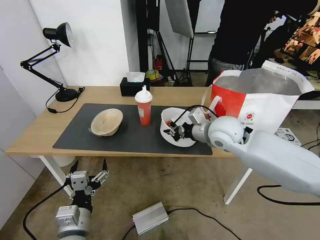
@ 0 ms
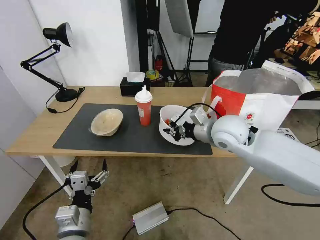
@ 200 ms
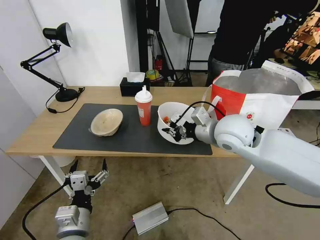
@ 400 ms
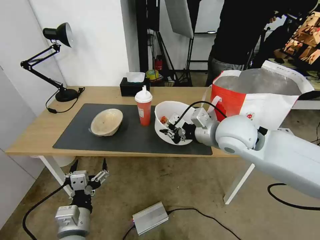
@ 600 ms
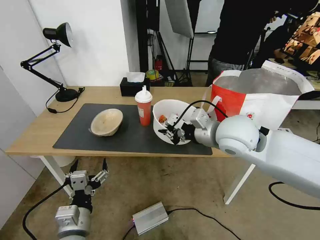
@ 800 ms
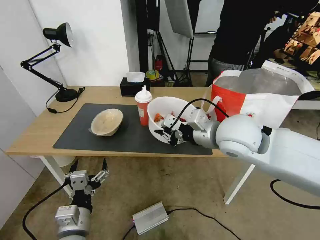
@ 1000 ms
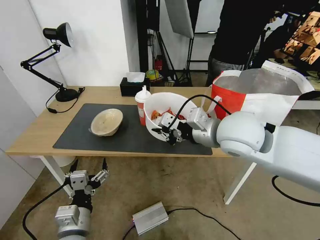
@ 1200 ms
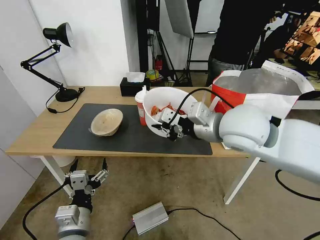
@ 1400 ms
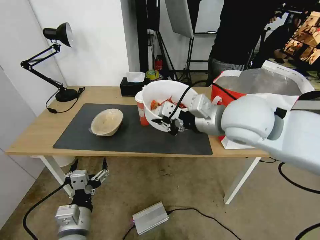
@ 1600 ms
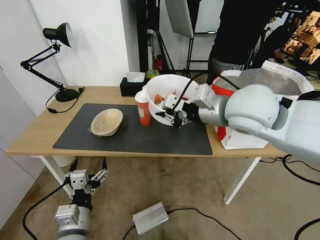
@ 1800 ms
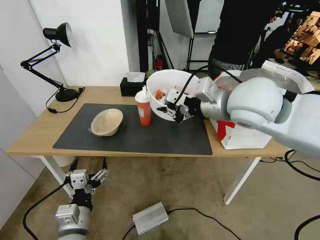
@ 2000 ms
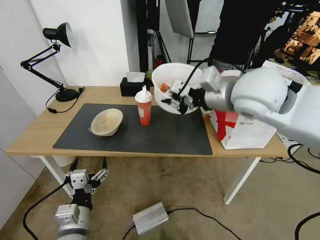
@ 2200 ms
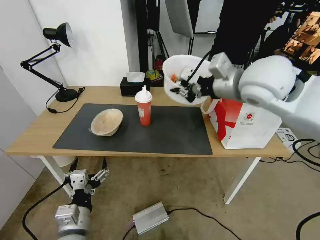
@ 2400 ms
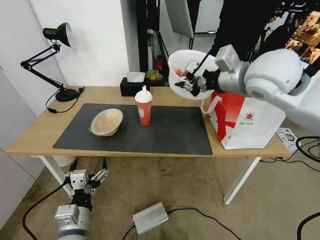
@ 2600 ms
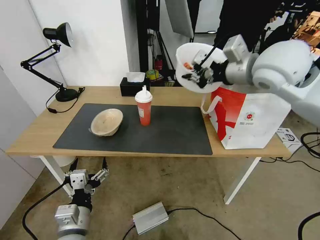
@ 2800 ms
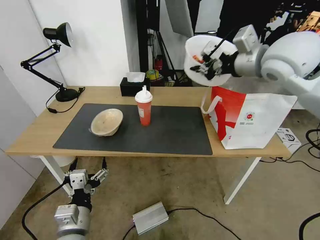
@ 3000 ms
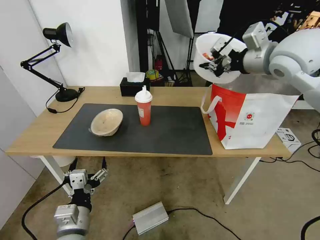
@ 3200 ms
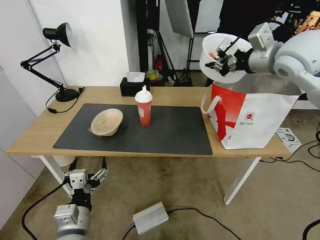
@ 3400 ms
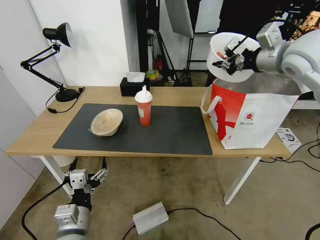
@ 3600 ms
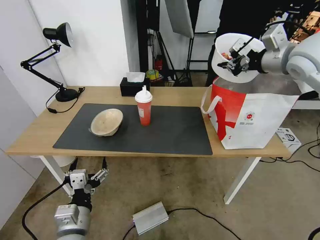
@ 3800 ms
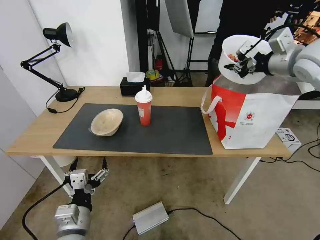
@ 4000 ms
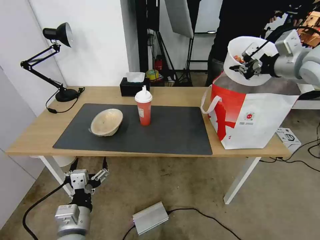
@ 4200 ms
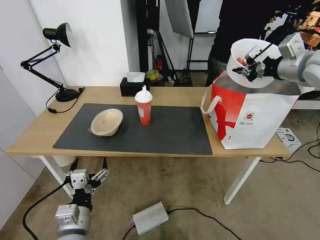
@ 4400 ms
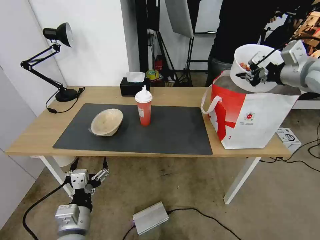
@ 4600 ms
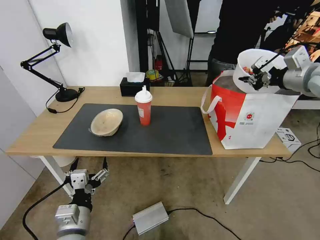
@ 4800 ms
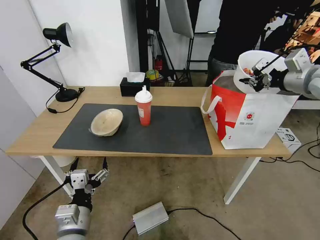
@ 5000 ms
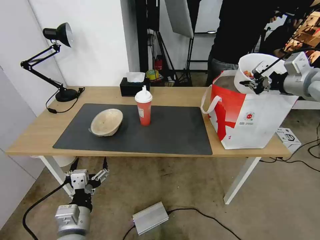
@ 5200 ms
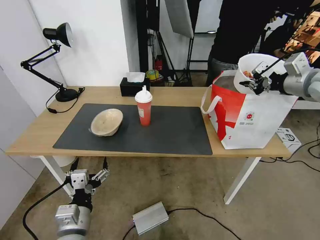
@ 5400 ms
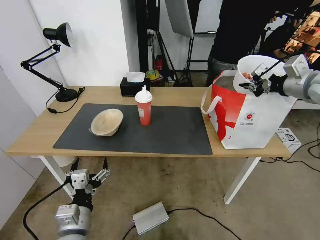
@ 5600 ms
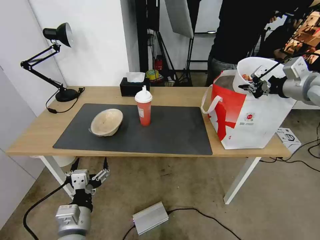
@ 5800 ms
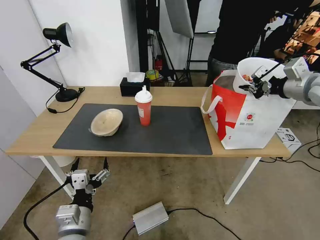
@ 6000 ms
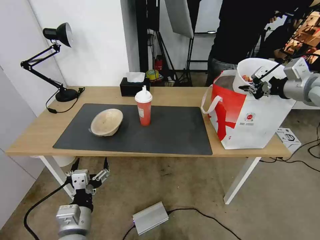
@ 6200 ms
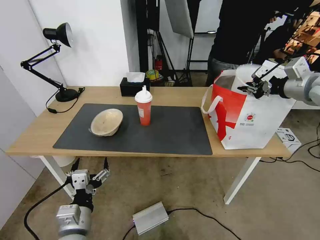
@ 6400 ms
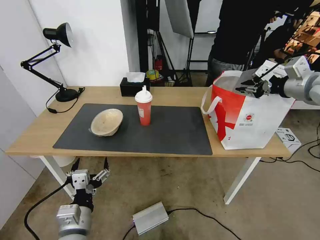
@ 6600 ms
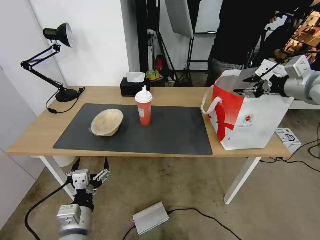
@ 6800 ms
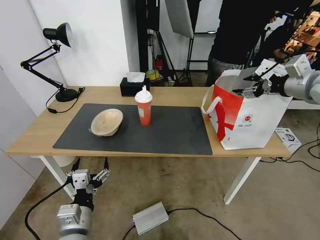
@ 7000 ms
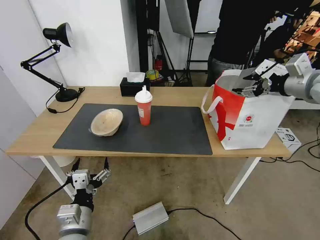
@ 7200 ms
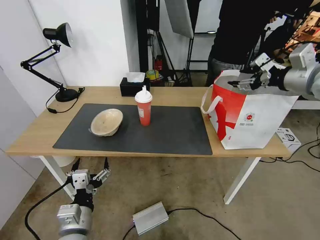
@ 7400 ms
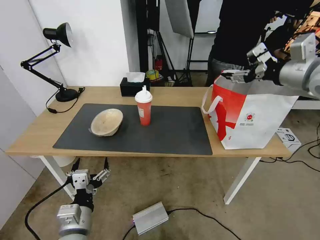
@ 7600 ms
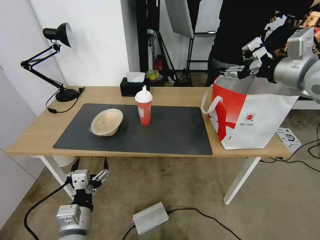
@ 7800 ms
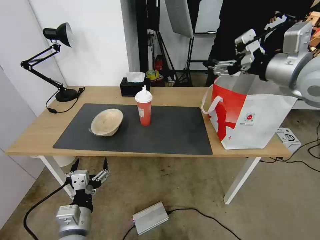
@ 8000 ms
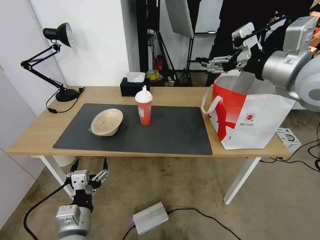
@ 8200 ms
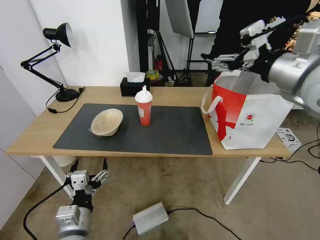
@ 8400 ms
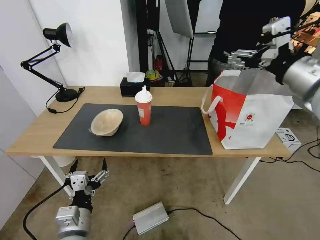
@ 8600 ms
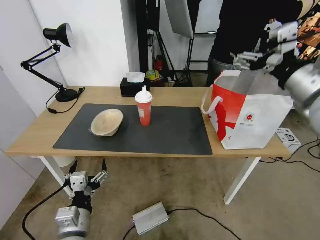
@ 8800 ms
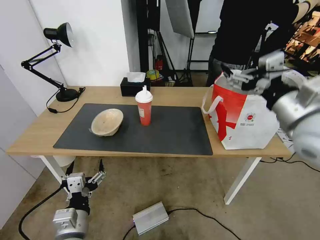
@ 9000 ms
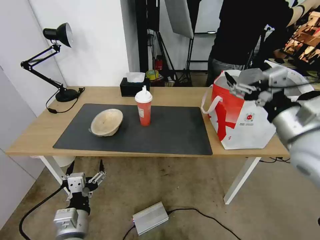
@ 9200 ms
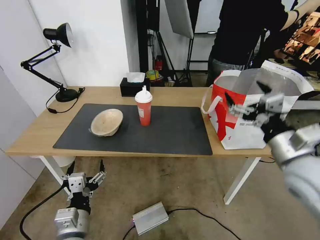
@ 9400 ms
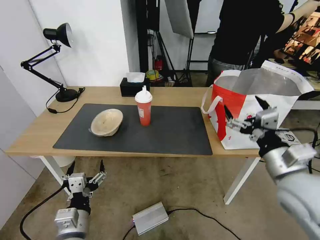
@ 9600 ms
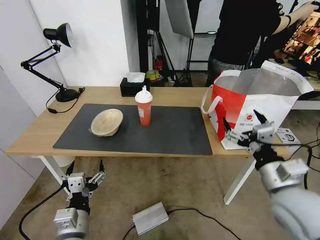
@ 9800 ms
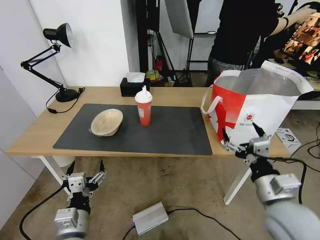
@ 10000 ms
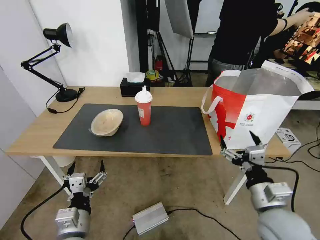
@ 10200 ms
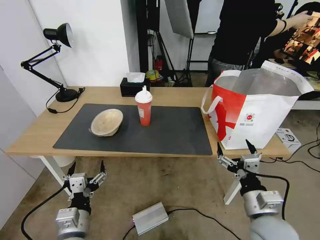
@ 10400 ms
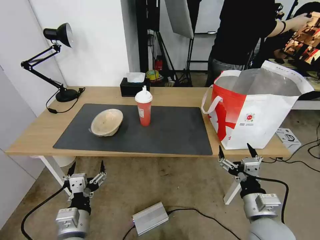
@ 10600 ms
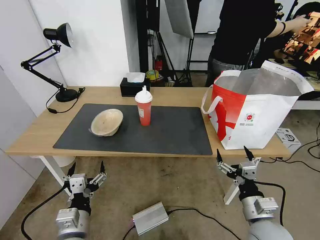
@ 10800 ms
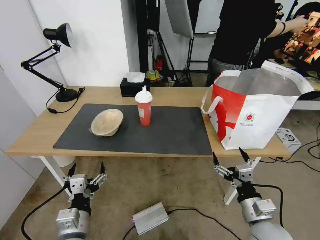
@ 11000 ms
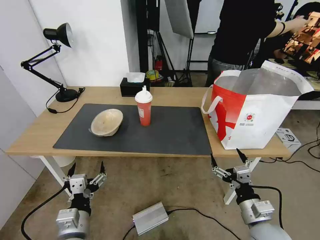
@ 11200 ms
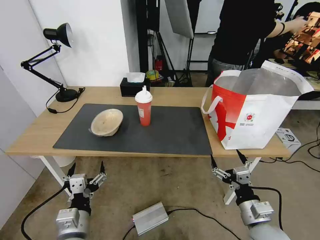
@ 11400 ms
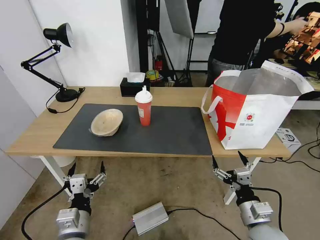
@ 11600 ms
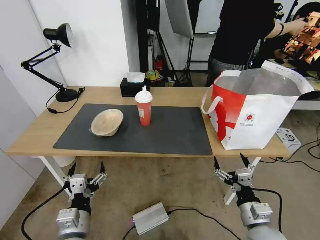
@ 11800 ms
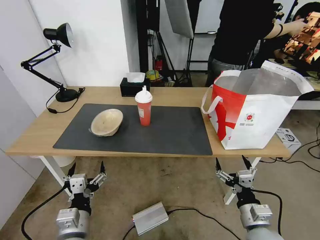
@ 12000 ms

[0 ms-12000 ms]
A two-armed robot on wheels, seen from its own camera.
Task of the whole recording: Pick up the trash from the table and place it into the takeout bag.
0 ms to 1600 ms: The right gripper shifts approximately 15 cm upward and backward.
1600 ms to 3000 ms: The right gripper shifts about 15 cm to the right, forward and upward.
3000 ms to 4400 ms: The right gripper goes roughly 10 cm to the right.
4400 ms to 6000 ms: The right gripper ends up approximately 5 cm from where it was.
6000 ms to 7600 ms: The right gripper shifts by approximately 5 cm, and opens.
7600 ms to 9000 ms: The right gripper goes about 15 cm backward, downward and to the left.
9000 ms to 10400 ms: The right gripper moves downward and backward, approximately 25 cm.
10400 ms to 12000 ms: The right gripper is displaced downward by roughly 5 cm.

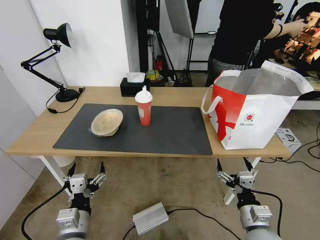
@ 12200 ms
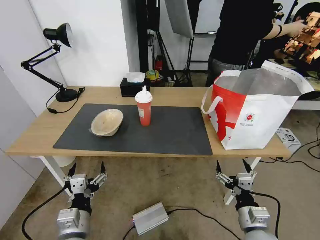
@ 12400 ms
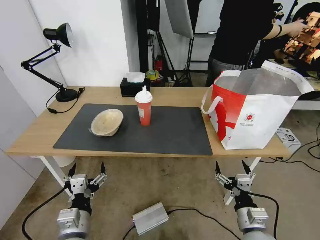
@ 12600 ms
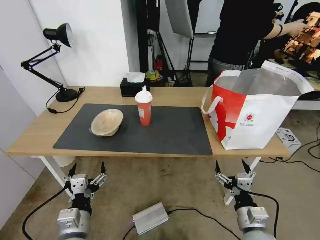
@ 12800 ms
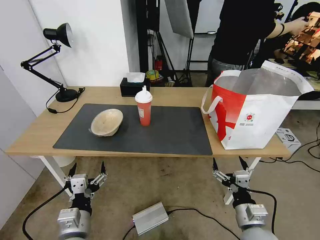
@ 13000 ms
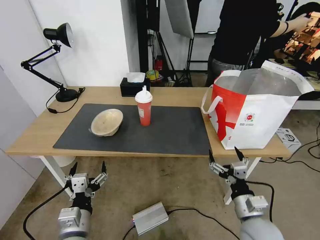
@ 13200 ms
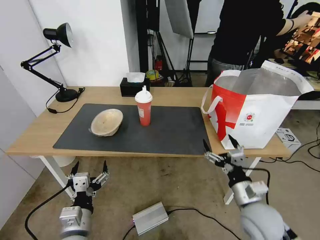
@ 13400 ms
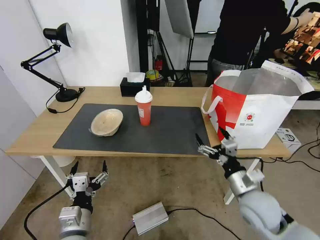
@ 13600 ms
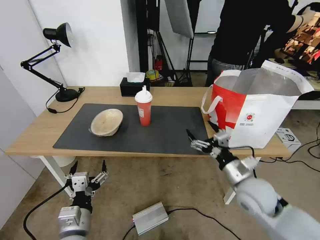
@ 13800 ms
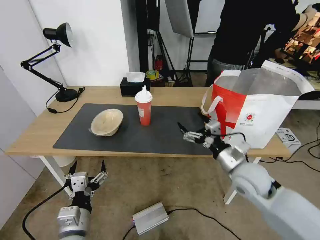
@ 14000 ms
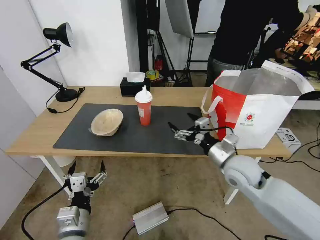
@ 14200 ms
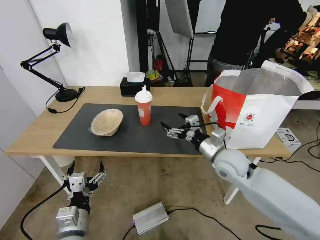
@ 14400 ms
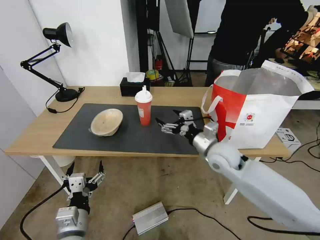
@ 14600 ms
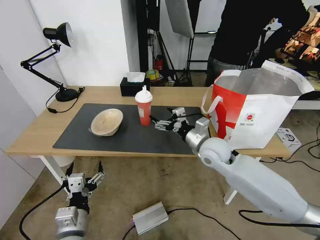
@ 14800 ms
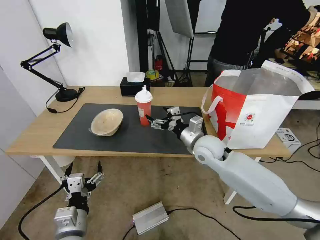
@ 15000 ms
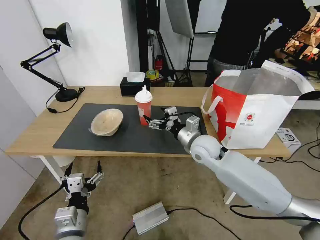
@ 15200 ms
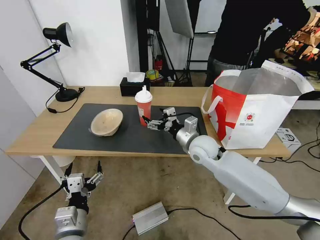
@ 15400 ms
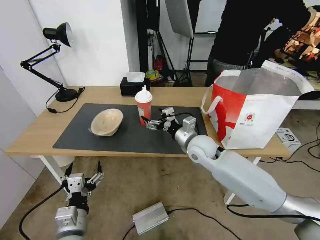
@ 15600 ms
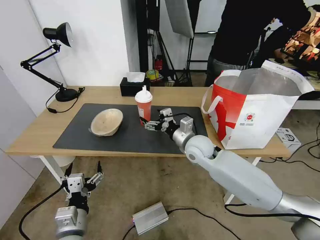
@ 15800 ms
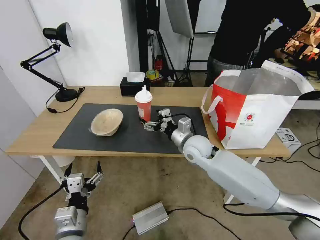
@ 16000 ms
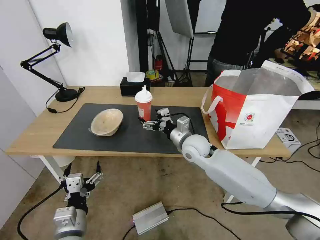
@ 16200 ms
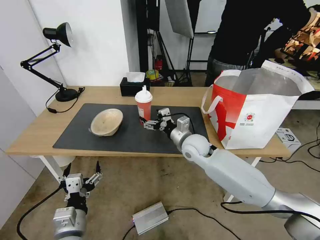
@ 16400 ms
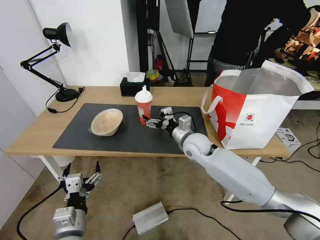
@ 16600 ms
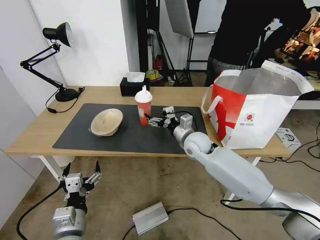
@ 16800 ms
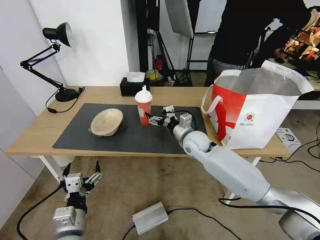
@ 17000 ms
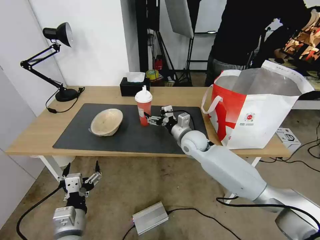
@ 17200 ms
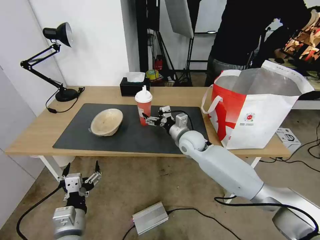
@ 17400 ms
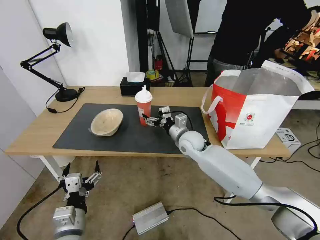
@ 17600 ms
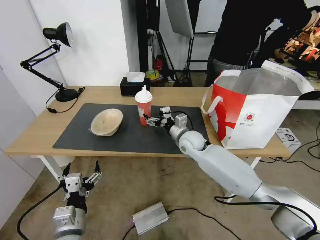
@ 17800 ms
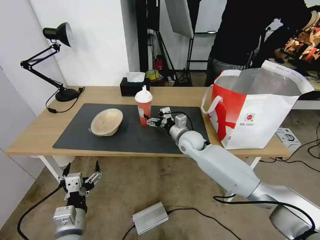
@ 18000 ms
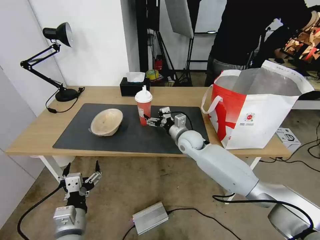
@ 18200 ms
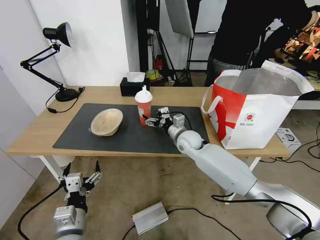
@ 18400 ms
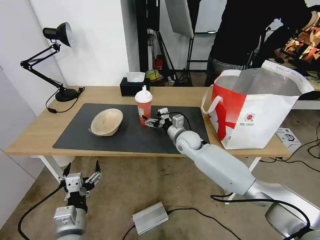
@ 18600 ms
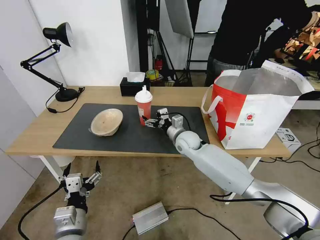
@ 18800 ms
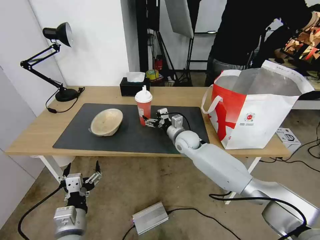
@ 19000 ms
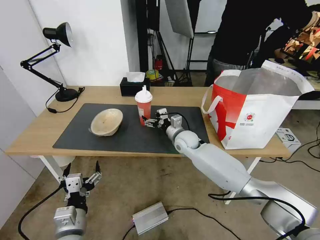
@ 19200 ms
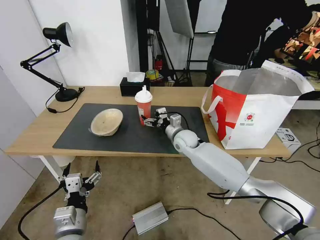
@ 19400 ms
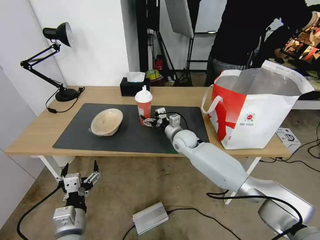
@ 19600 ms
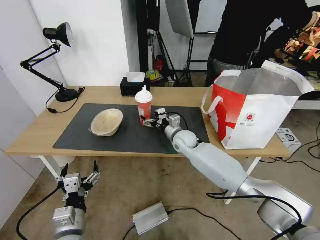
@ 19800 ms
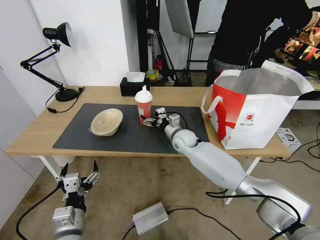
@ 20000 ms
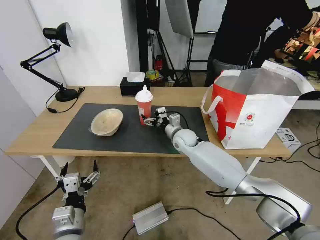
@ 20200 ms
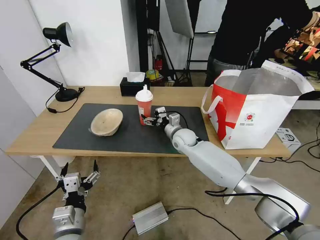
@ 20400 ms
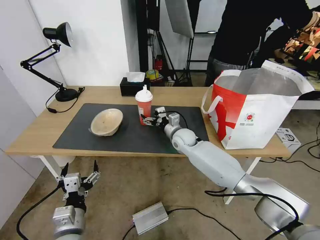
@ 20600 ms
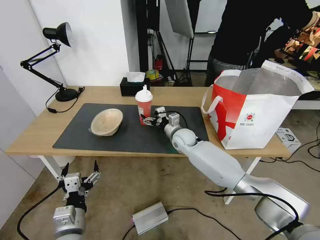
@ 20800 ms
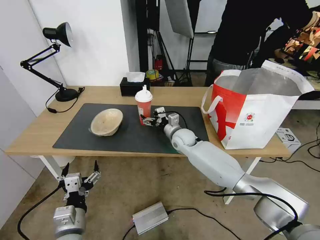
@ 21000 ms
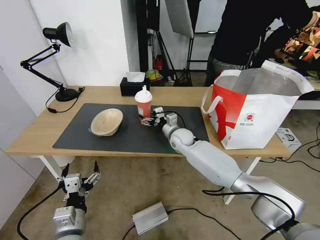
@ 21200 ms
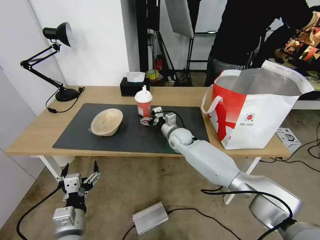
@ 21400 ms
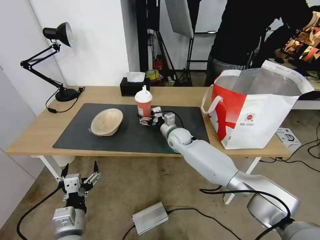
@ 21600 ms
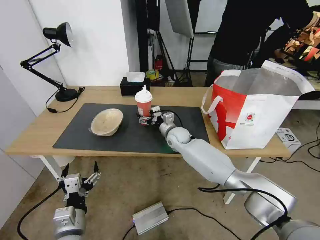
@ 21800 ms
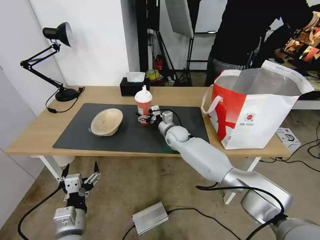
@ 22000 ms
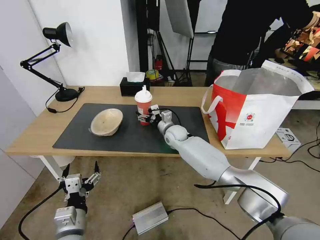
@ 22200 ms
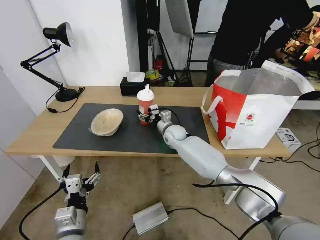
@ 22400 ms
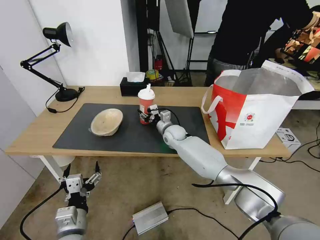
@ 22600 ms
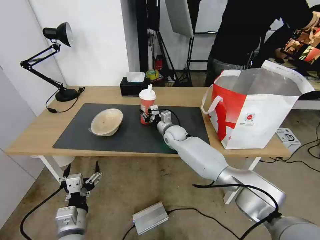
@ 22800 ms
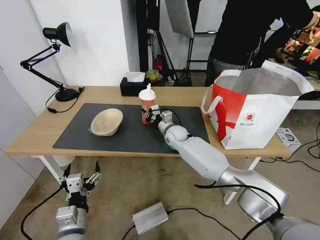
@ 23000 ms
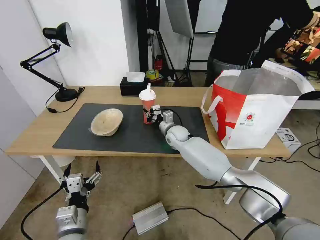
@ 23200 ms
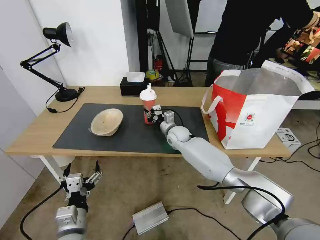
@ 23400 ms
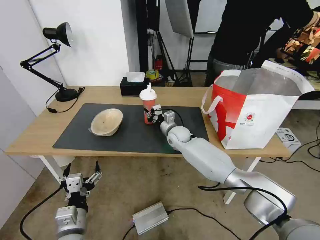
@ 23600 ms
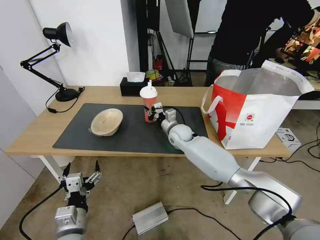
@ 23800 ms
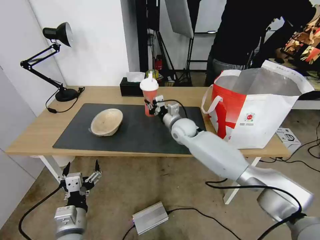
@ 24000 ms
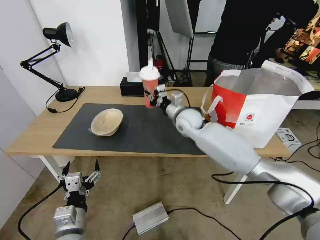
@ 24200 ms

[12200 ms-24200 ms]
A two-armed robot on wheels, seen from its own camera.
Task of the whole recording: Pick up the trash from the table and place it into the takeout bag.
12200 ms to 13800 ms: The right gripper travels forward and upward by some 15 cm.
13800 ms to 15200 ms: The right gripper goes roughly 20 cm forward and to the left.
15200 ms to 16600 ms: The grippers move only a little.
16600 ms to 18200 ms: The right gripper moves some 5 cm.
18200 ms to 21200 ms: The grippers make only small movements.
21200 ms to 22600 ms: The right gripper closes its fingers.
22600 ms to 24200 ms: The right gripper heads upward, covering some 10 cm, and closes its fingers.
